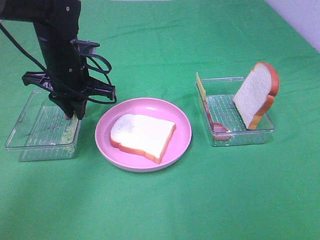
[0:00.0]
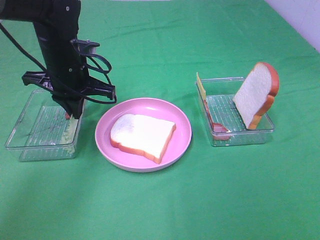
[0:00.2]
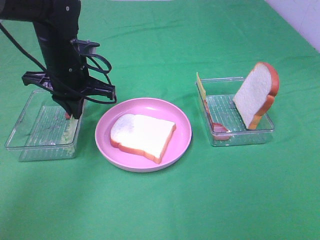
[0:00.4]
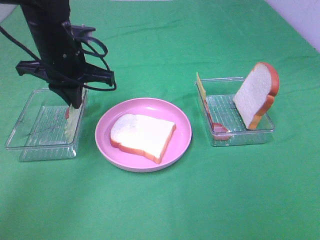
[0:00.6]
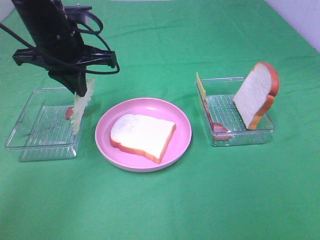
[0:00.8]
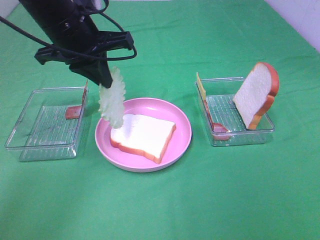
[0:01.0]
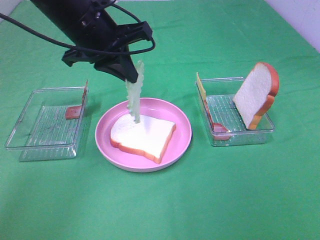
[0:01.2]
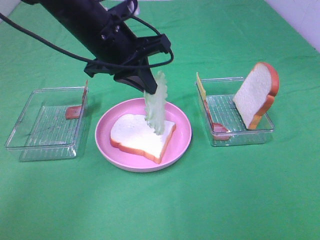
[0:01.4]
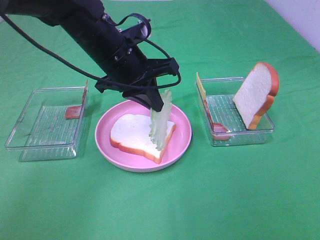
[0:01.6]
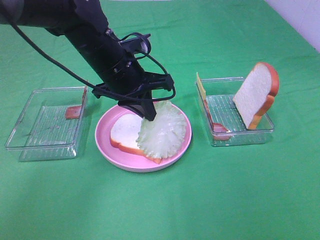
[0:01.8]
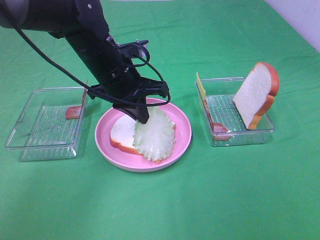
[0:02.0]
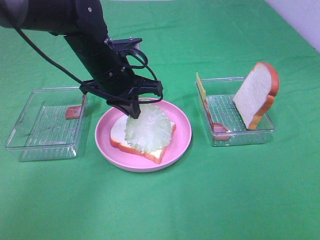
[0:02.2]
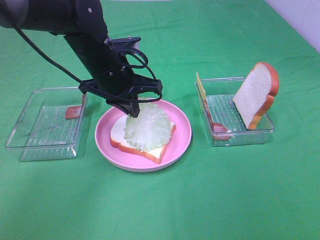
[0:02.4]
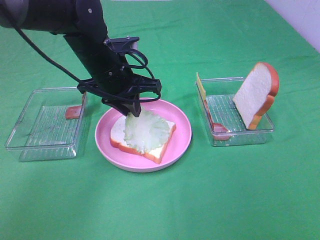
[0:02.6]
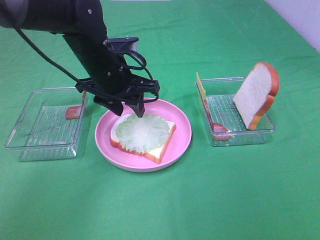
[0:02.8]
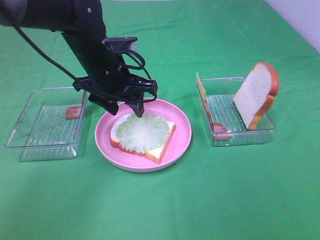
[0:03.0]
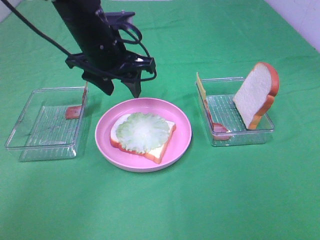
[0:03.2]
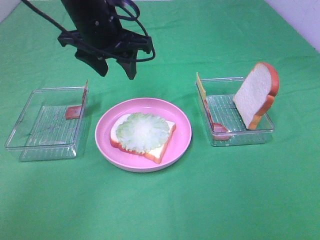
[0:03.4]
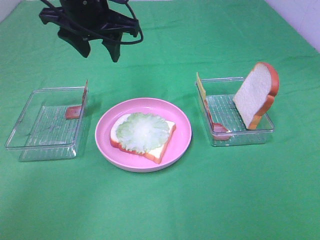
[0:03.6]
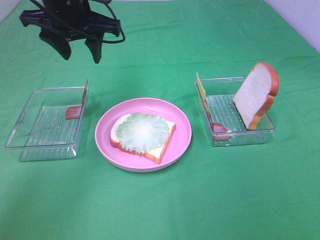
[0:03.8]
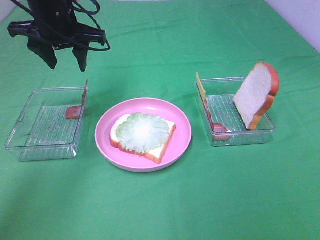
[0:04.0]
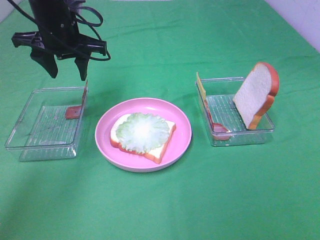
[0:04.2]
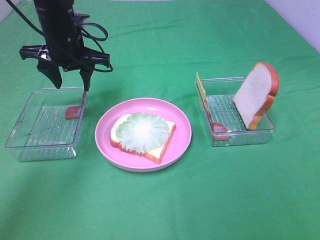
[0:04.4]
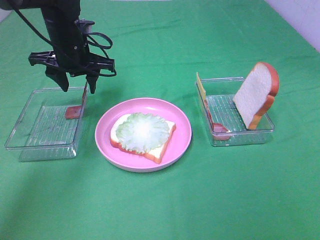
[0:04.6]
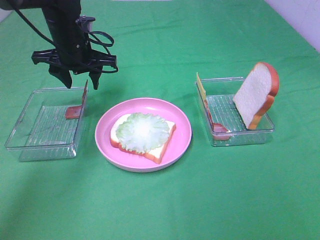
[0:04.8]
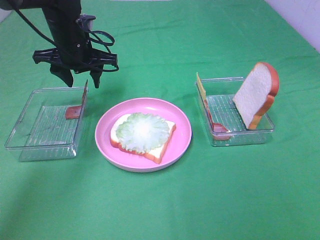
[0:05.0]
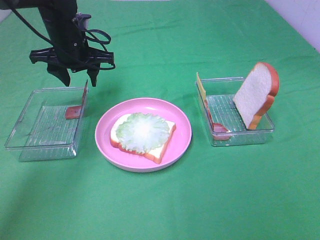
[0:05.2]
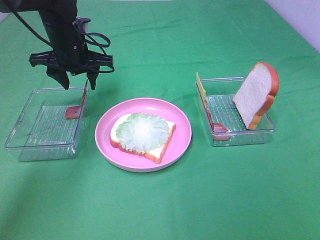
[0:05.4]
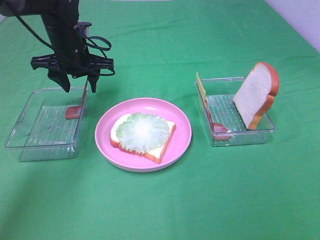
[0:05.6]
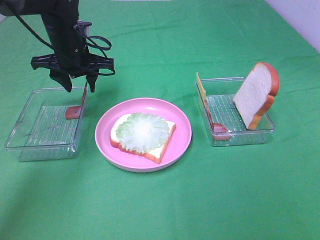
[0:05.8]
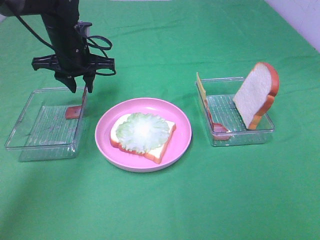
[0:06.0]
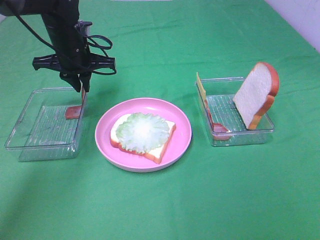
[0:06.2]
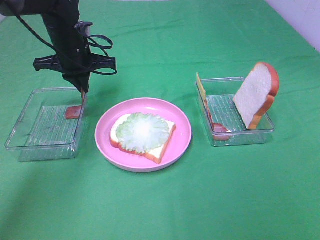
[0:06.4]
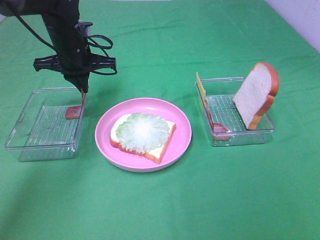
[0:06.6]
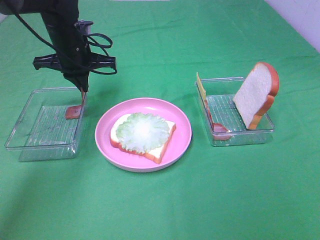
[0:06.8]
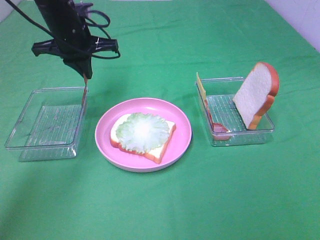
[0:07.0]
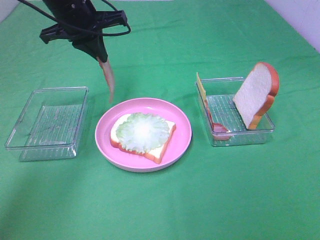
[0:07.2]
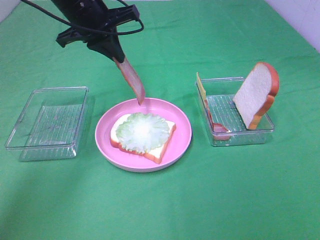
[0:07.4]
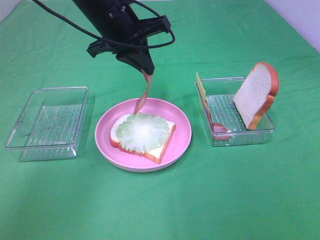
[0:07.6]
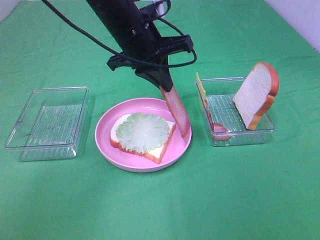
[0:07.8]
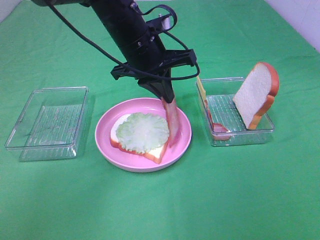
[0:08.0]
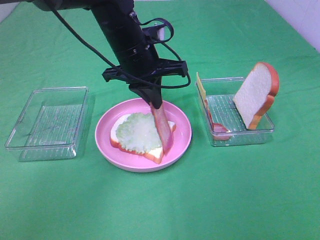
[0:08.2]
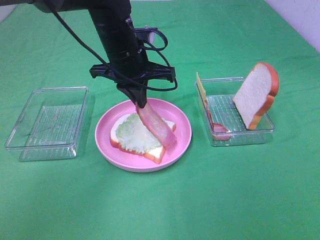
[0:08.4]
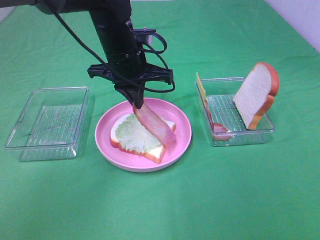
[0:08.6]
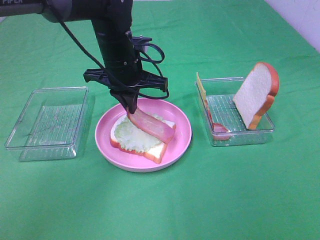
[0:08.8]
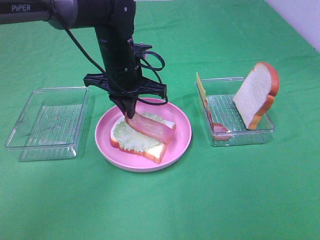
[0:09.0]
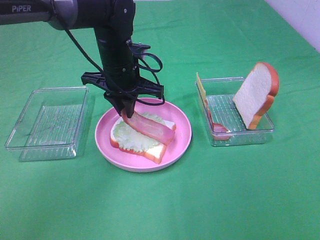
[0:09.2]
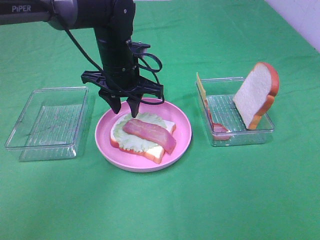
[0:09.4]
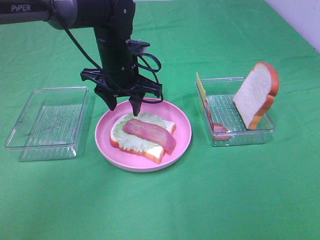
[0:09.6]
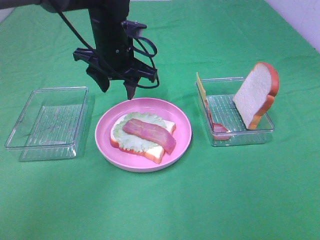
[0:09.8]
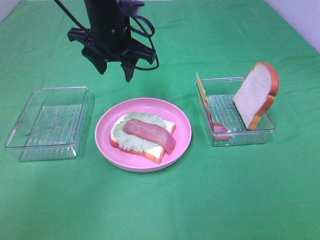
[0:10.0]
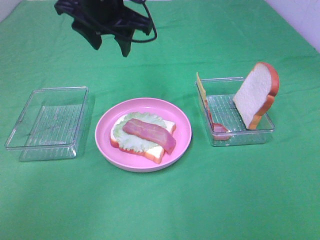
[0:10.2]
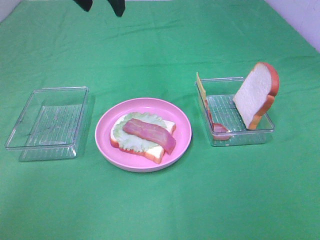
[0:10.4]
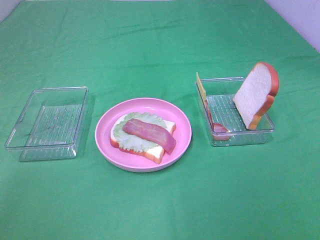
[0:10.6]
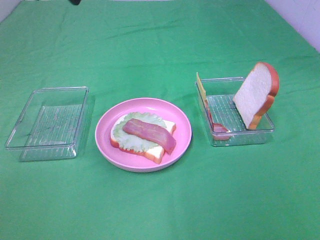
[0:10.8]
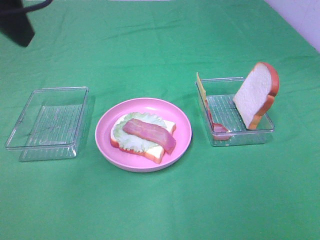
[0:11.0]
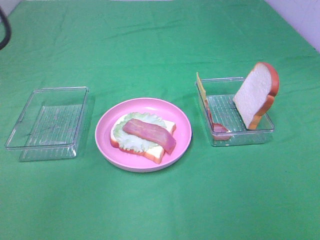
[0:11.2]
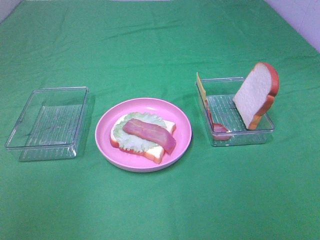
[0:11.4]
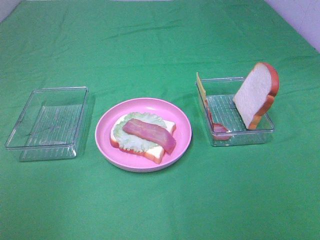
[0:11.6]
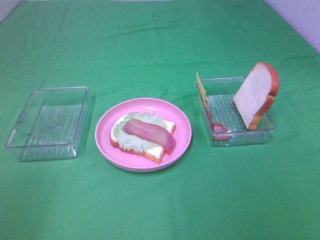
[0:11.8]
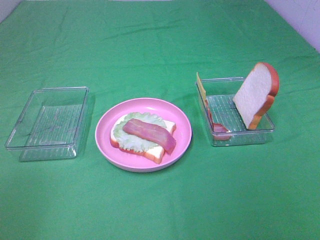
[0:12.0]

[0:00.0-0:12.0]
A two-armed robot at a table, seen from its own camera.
Task of the whole recording: Make sandwiches.
Step, 0.4 to 2.8 s: Left hand:place the lettuce slice on the bread slice.
Step, 3.0 to 6.4 s: Left hand:grab the bacon.
Step, 6.6 to 9.2 s: Left hand:place bacon on lettuce slice.
0.0 to 1.6 s: The left gripper heads to the right, covering approximately 10 cm, and travels upward and back again, about 10 cm each way.
1.6 to 3.0 s: The left gripper opens.
3.0 to 4.4 s: The left gripper moves to the left and forward, about 10 cm, and moves roughly 10 cm upward and comes back.
4.4 to 6.0 s: The grippers move only a little.
6.0 to 7.6 s: The left gripper heads to the right, upward and backward, covering about 15 cm, and closes its fingers.
7.6 to 9.0 s: The left gripper is displaced downward by some 10 cm.
9.0 to 10.4 s: The left gripper goes approximately 20 cm upward, and opens its fingers.

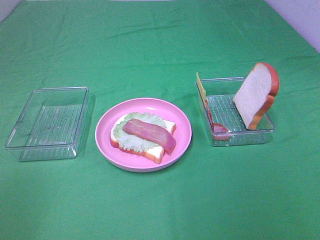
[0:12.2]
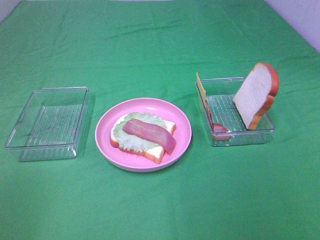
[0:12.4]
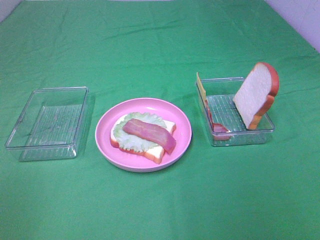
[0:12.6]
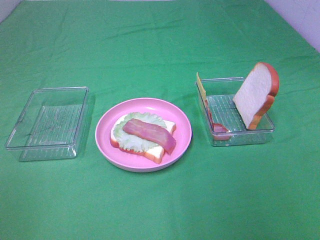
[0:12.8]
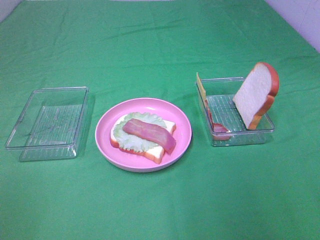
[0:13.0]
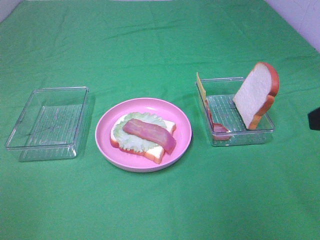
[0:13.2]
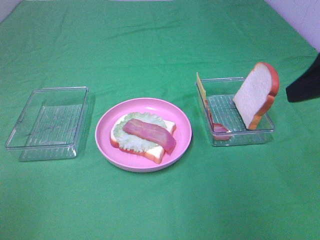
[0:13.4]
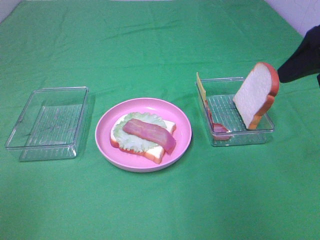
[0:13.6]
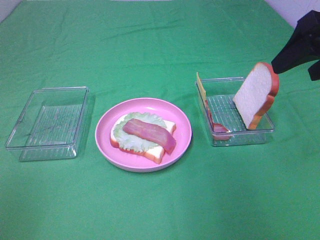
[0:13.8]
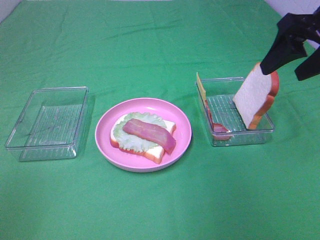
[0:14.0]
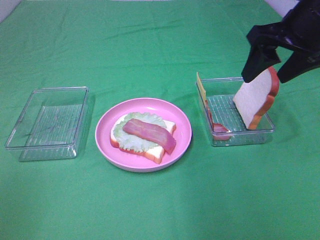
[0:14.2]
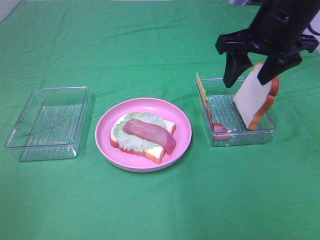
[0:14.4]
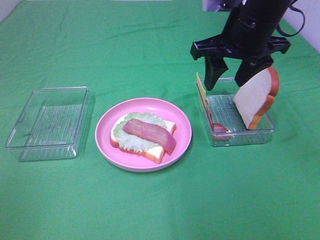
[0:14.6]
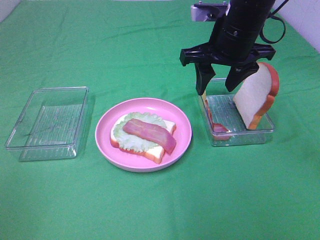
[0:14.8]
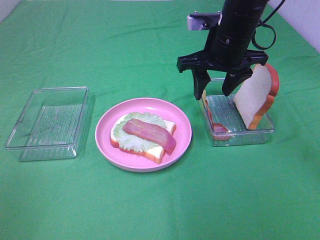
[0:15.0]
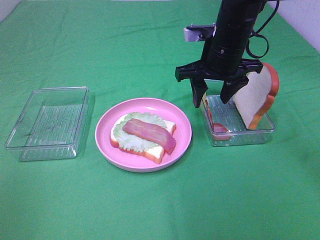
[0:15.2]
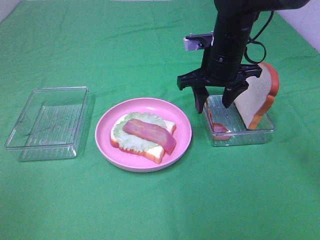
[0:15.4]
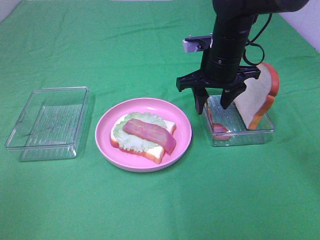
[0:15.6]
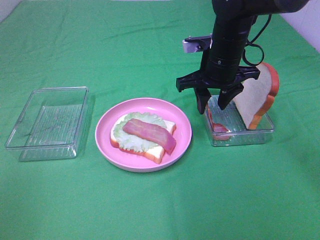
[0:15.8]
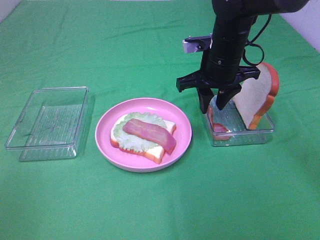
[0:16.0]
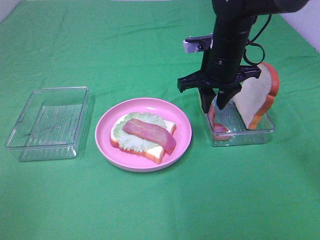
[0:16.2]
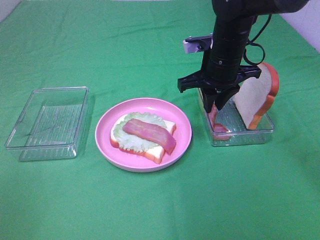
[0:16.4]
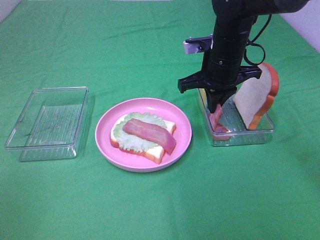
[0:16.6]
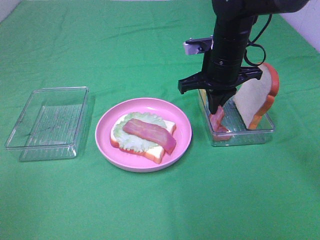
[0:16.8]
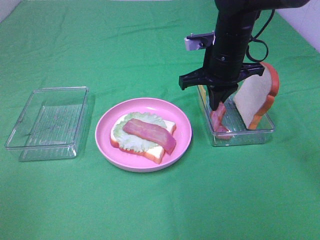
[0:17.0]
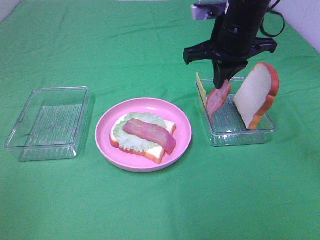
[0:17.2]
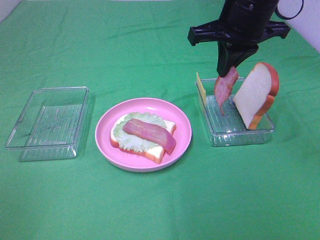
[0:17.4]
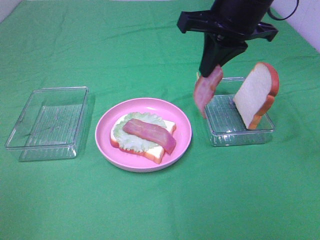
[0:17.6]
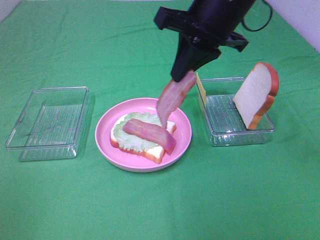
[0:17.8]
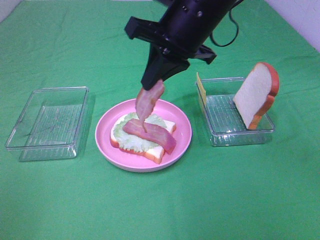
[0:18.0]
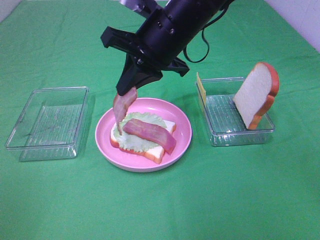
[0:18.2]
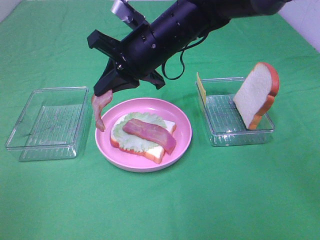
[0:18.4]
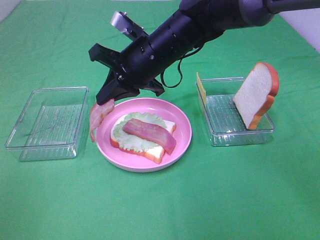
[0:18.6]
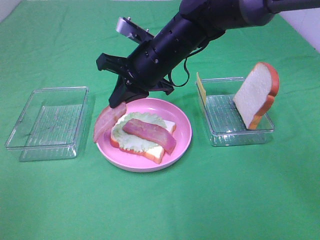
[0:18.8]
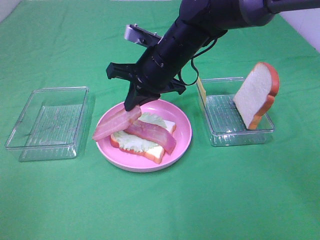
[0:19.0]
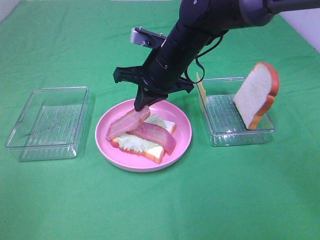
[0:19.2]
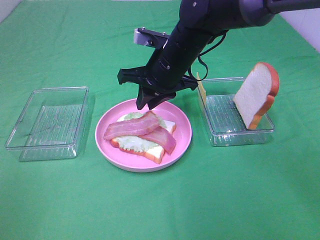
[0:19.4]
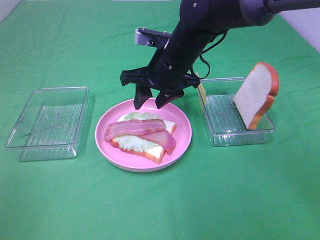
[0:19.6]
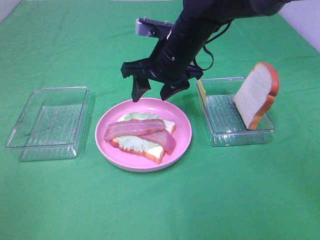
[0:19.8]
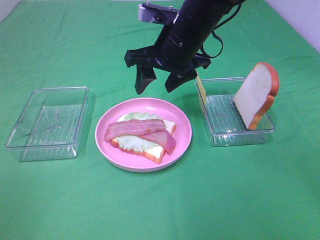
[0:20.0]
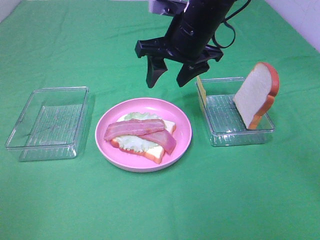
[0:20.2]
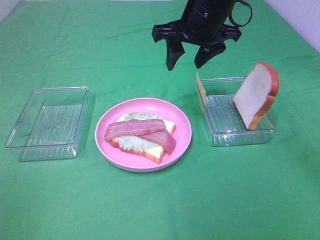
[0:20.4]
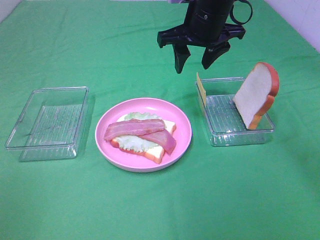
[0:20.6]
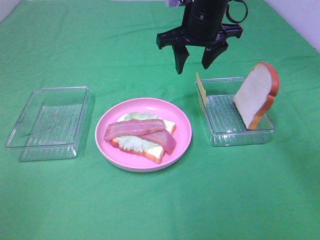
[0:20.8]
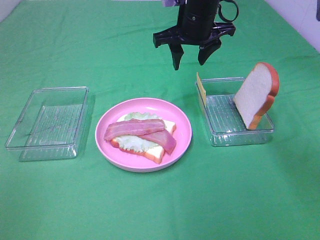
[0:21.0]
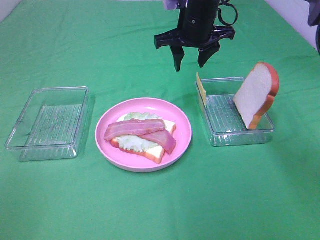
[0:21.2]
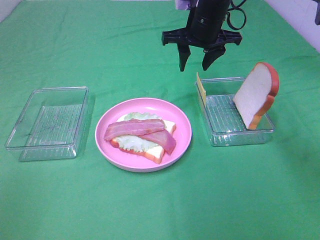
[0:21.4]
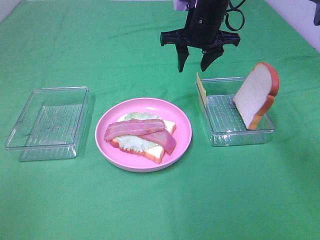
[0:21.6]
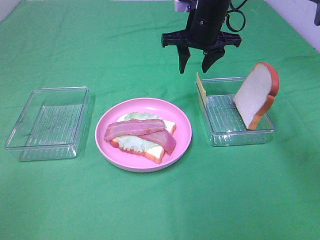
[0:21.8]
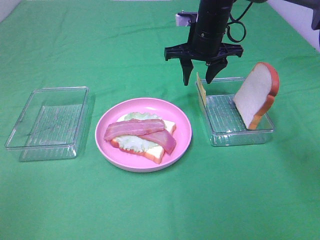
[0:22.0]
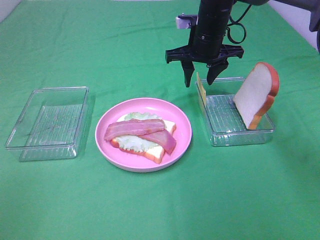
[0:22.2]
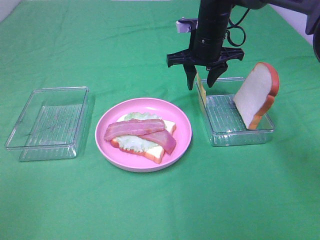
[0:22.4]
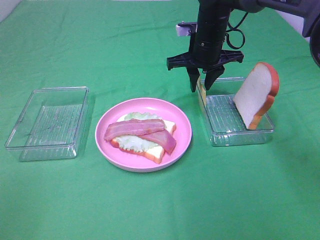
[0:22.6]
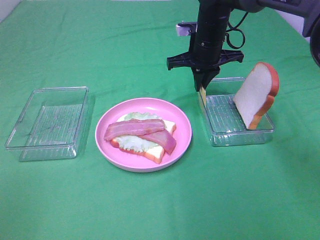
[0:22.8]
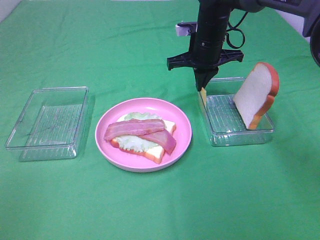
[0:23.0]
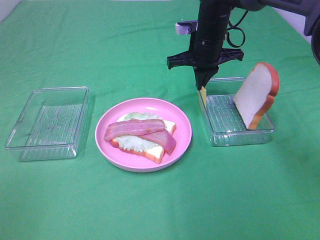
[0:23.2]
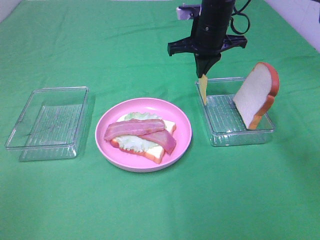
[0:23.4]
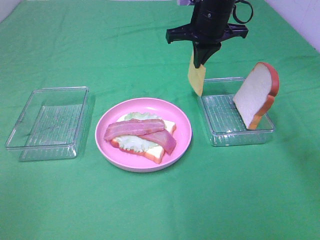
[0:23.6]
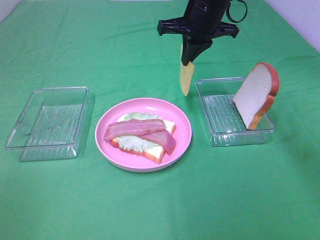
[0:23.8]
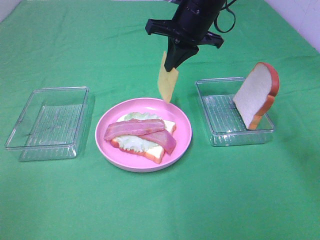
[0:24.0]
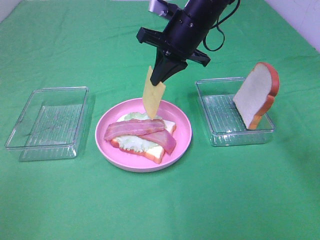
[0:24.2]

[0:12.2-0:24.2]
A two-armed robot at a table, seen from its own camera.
Task of the whole recording: Make sandwiches.
Step, 12.2 to 16.6 s: Right hand:grab the bacon.
Step, 16.8 to 19.4 s: Right hand:place bacon on lettuce slice.
Step, 19.6 to 23.0 s: Right hand:grab the cheese slice.
12.2 to 13.8 s: The right gripper travels forward by approximately 30 cm.
13.8 to 15.2 s: The right gripper travels to the left, downward and forward by roughly 20 cm.
15.2 to 16.6 s: The right gripper closes its fingers.
16.6 to 18.2 s: The right gripper goes some 10 cm to the left and upward.
18.2 to 19.8 s: The right gripper changes place by about 5 cm, and opens up.
19.8 to 21.2 s: The right gripper travels forward by some 10 cm.
21.2 to 22.6 s: The right gripper moves roughly 5 cm.
22.6 to 24.2 s: The right gripper moves approximately 5 cm, and closes its fingers.
